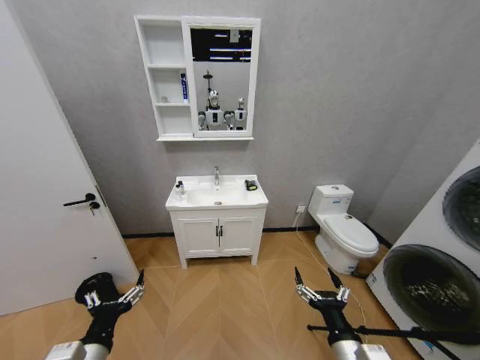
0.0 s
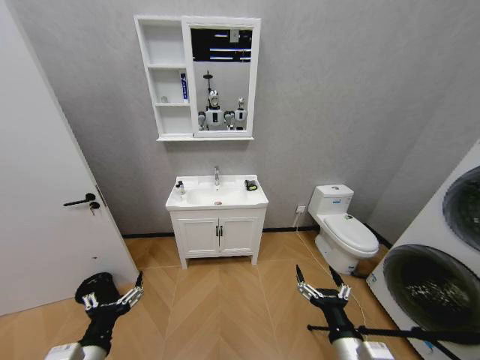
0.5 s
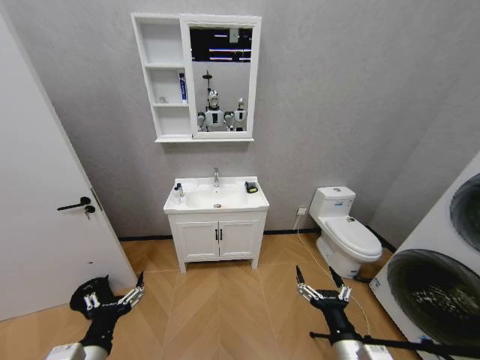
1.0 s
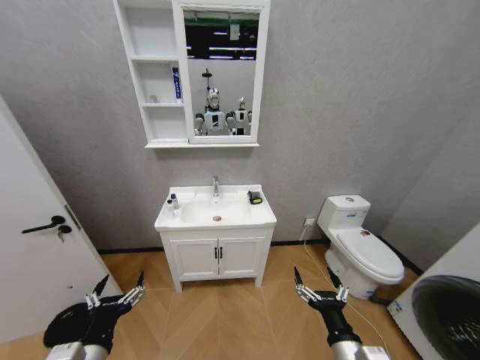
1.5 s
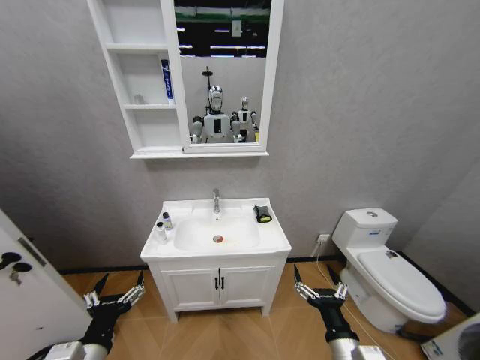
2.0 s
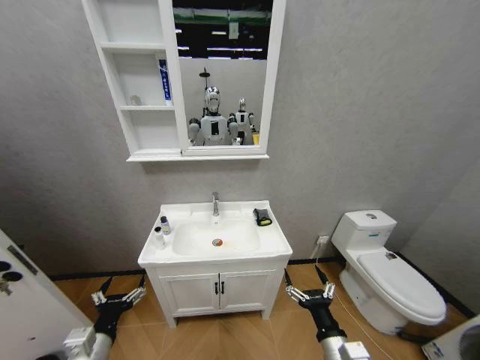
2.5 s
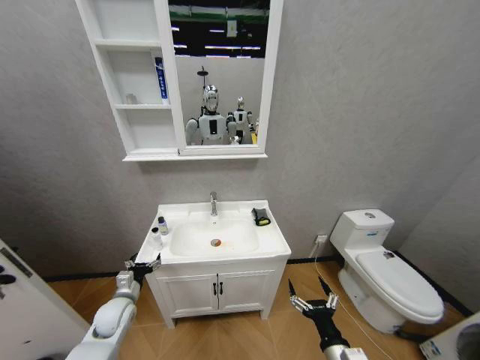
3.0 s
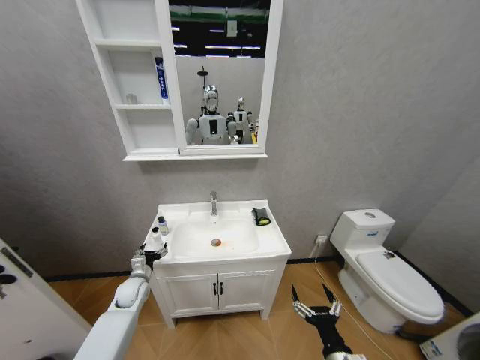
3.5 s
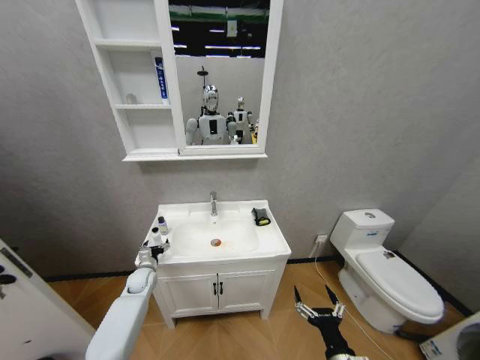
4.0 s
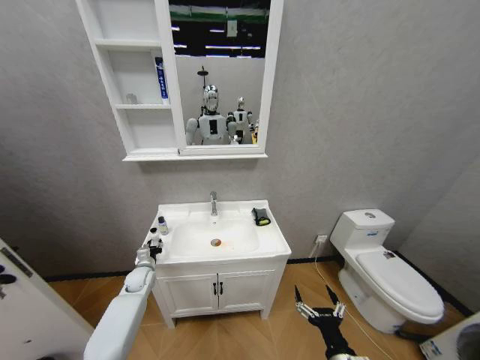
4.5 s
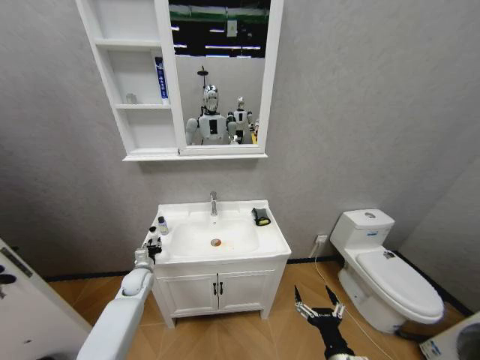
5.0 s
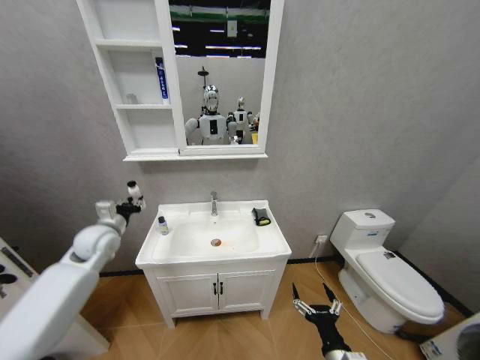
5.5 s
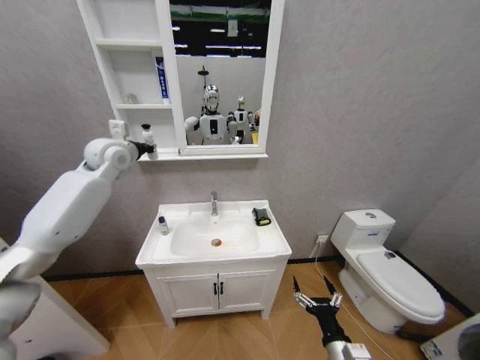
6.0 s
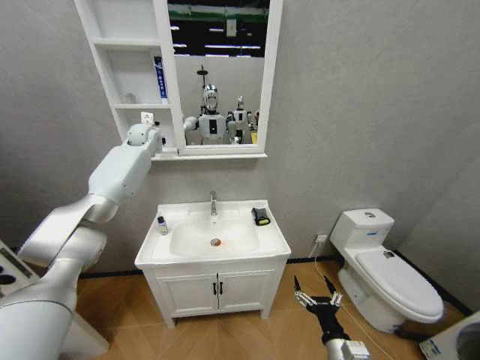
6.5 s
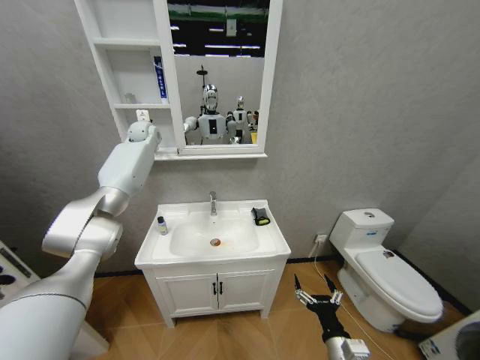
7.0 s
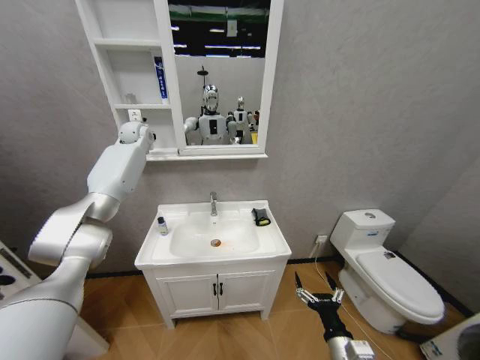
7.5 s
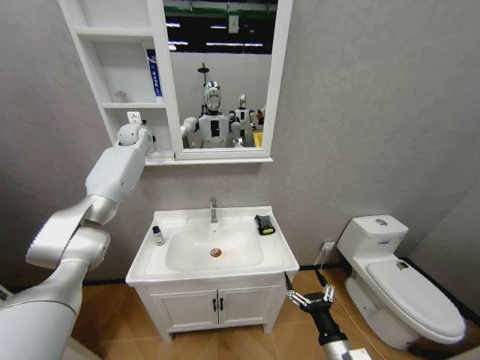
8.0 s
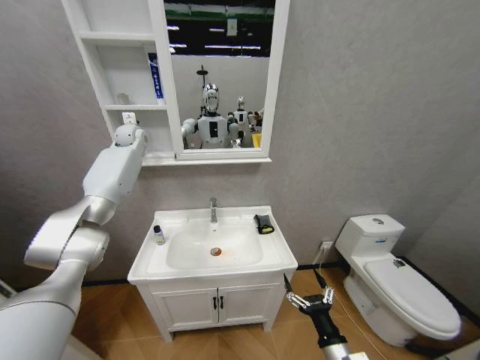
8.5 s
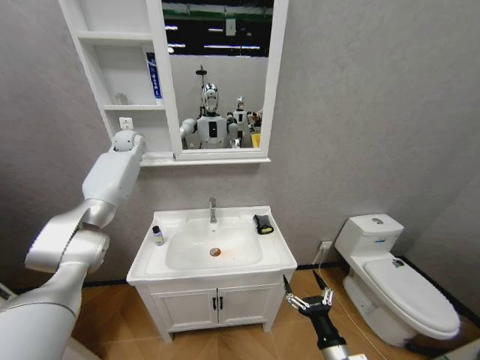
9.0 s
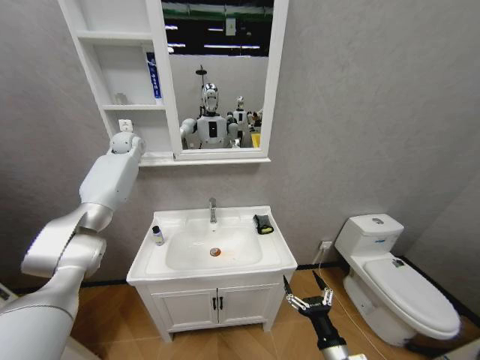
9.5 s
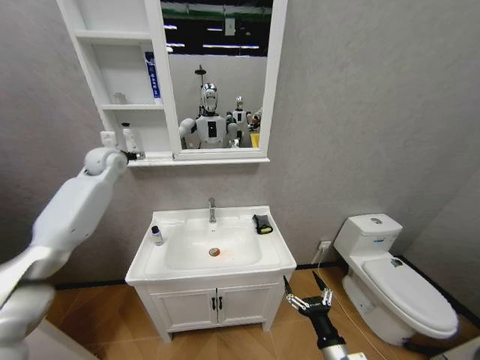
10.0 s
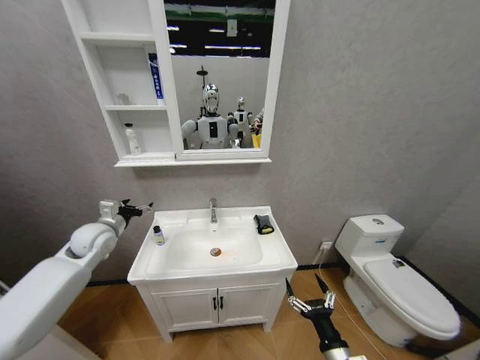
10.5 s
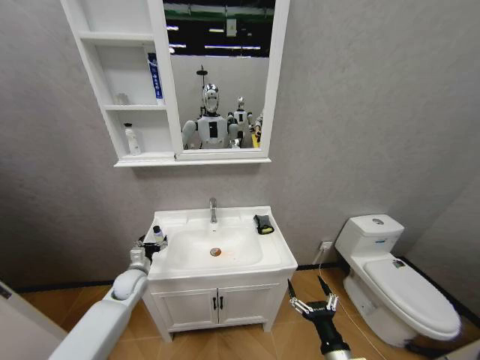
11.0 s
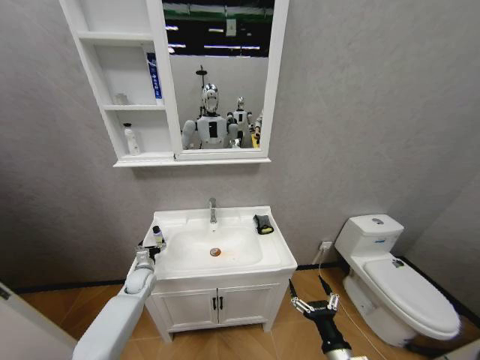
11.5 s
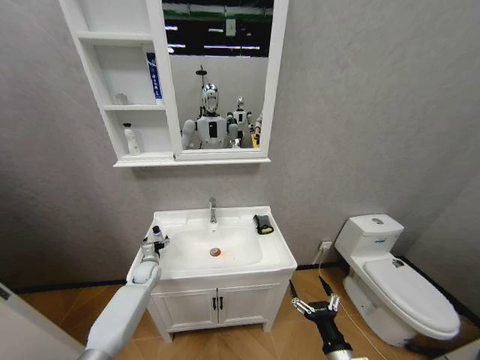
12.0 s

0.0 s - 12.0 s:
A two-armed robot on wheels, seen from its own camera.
Task of the whole recording: Move facial cleanser and shampoo from washbasin to cabinet, then wipe washbasin with towel.
2.0 s - 4.0 s: The left gripper moves forward and downward, roughly 35 cm. The right gripper is displaced downward by about 5 cm.
4.0 s - 6.0 s: The left gripper heads upward, covering roughly 50 cm, and closes.
6.0 s - 8.0 s: The left gripper travels forward by about 15 cm.
8.0 s - 10.0 s: The left gripper shifts some 10 cm backward and to the left, and opens its fingers.
10.0 s - 12.0 s: The left gripper shifts some 40 cm downward.

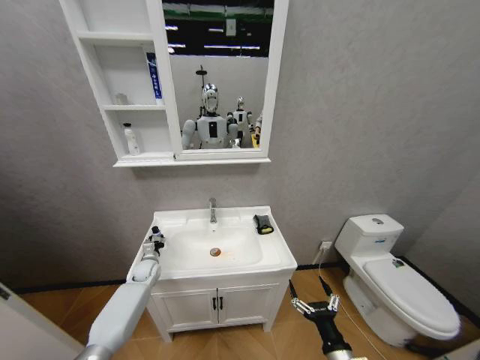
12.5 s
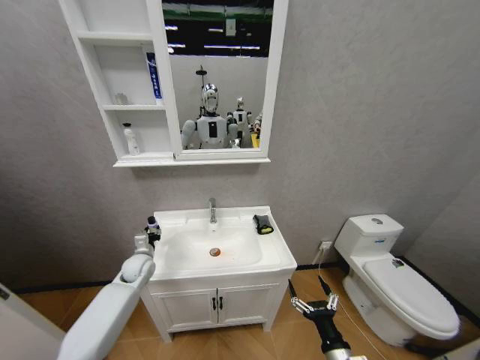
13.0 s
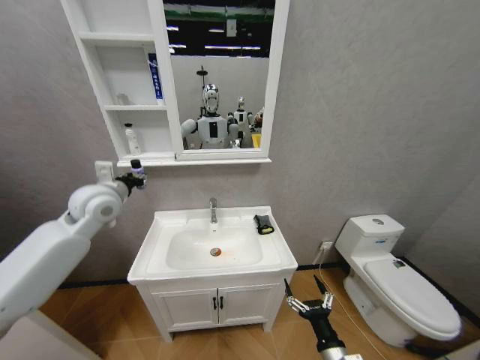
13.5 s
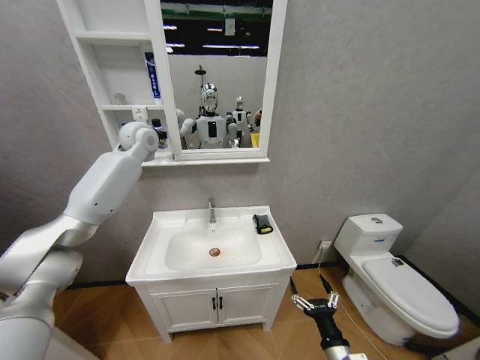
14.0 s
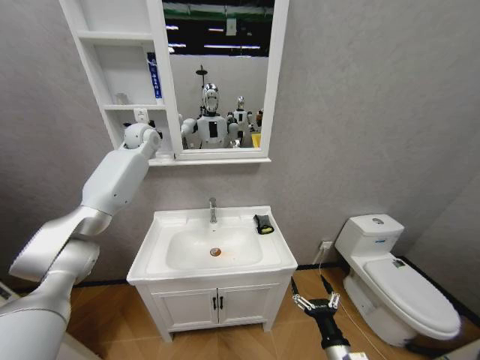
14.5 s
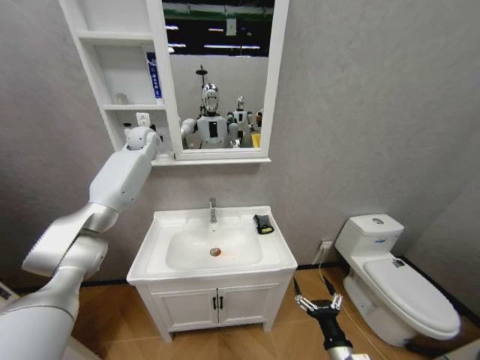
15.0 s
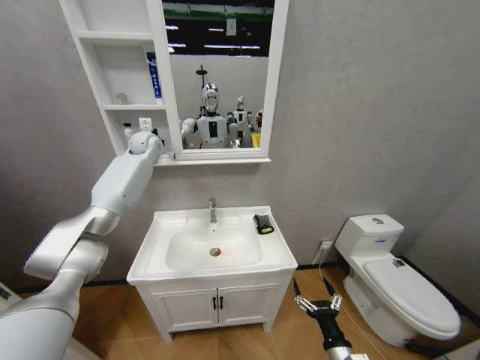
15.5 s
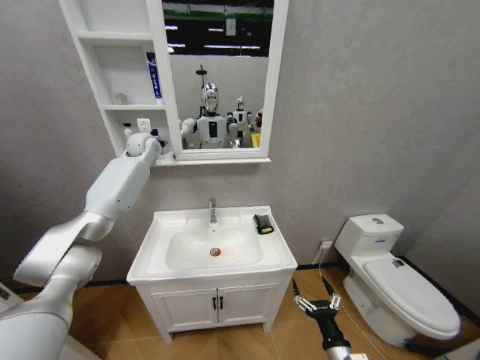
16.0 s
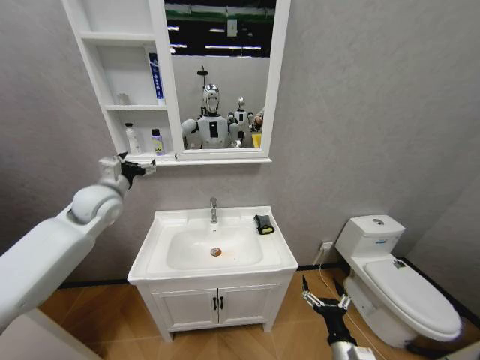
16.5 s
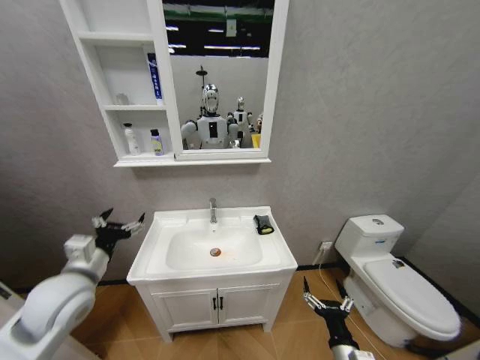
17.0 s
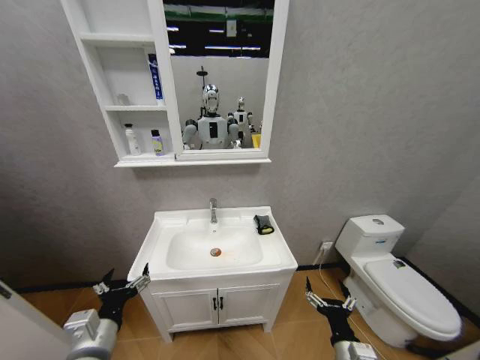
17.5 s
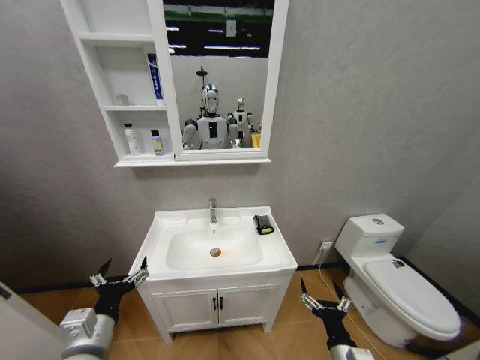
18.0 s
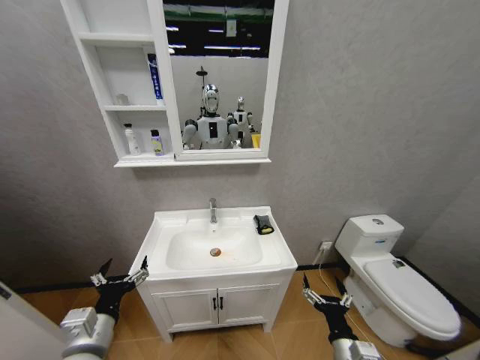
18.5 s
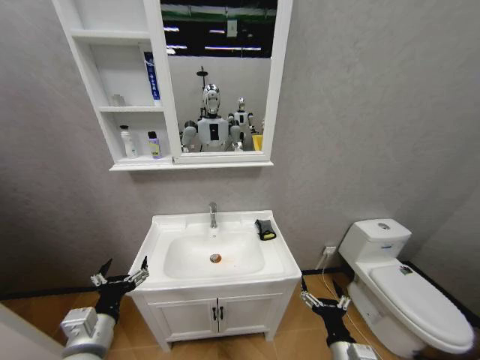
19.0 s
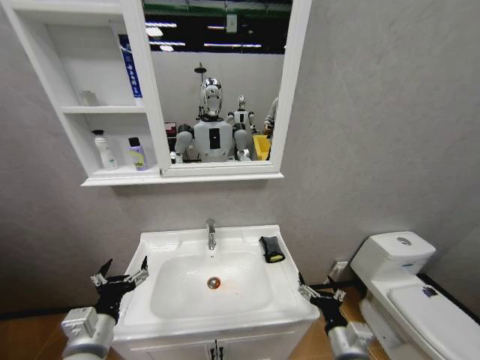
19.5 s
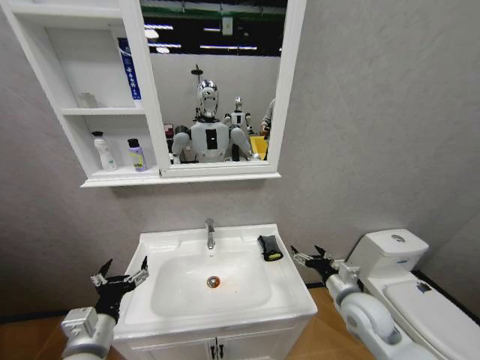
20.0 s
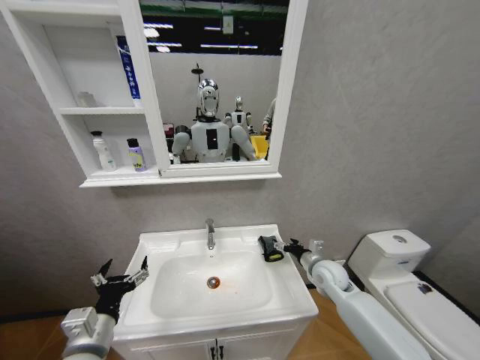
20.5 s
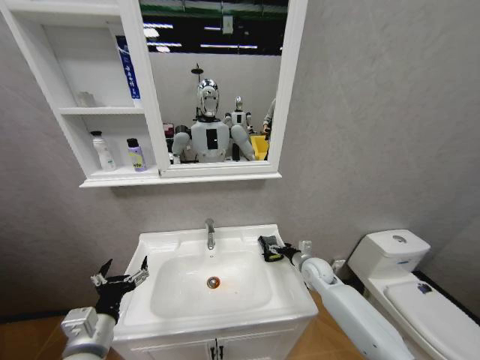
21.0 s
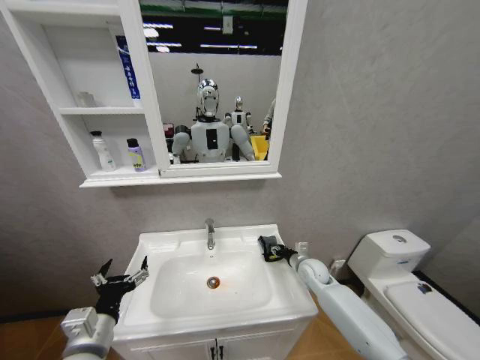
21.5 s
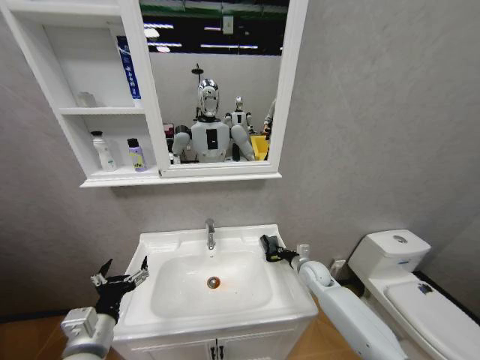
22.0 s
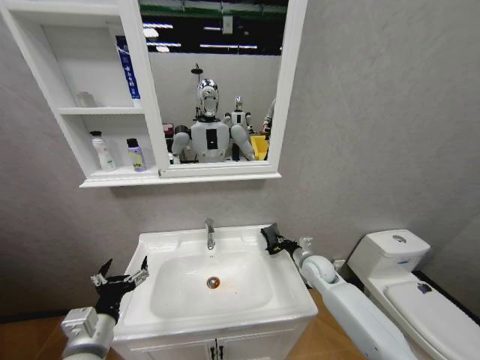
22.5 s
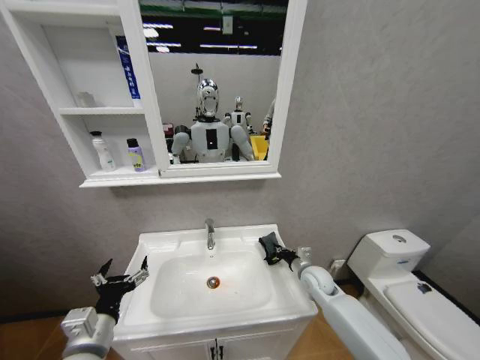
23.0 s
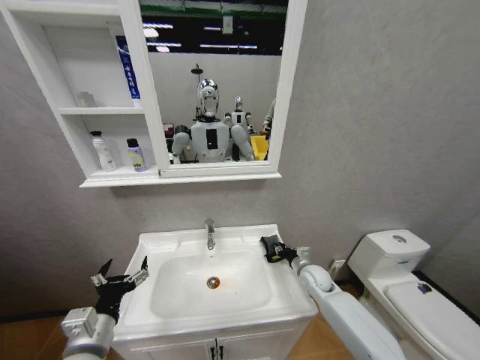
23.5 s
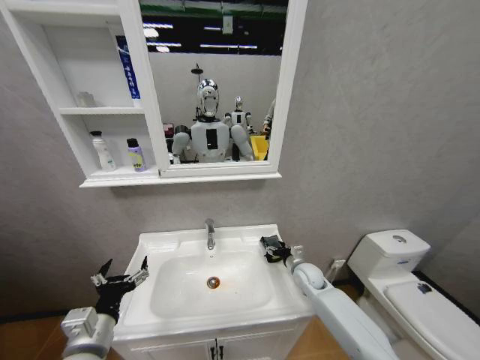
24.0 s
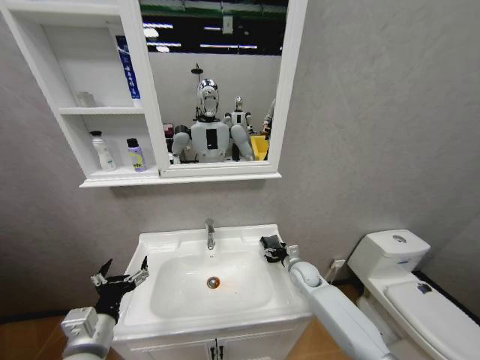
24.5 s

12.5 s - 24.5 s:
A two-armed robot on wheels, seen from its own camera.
Task of the whole recording: Move facial cleanser and shampoo from washbasin to cabinet, then wipe washbasin with towel.
12.5 s - 14.5 s: The left gripper moves upward, about 50 cm.
14.5 s - 16.5 s: The left gripper heads backward and downward, covering some 20 cm, and opens.
16.5 s - 18.5 s: The left gripper travels backward and downward by about 35 cm.
18.5 s - 20.5 s: The right gripper shifts about 25 cm forward.
20.5 s - 22.5 s: The right gripper closes up.
22.5 s - 24.5 s: The right gripper heads downward, covering some 5 cm, and opens.

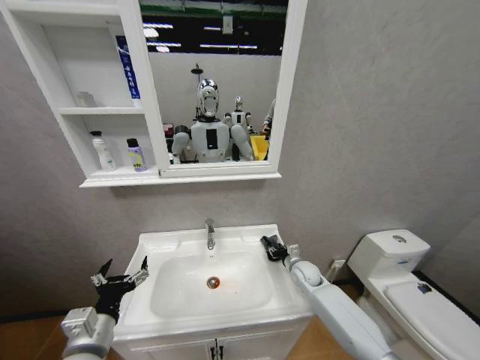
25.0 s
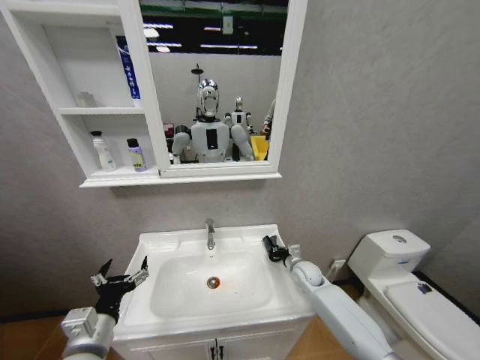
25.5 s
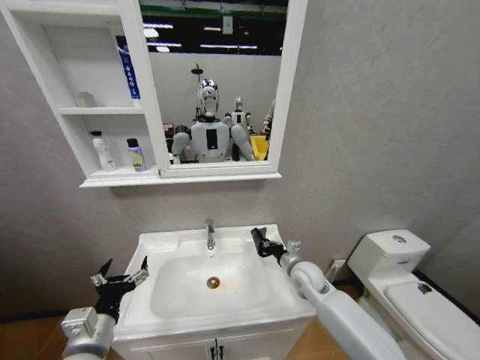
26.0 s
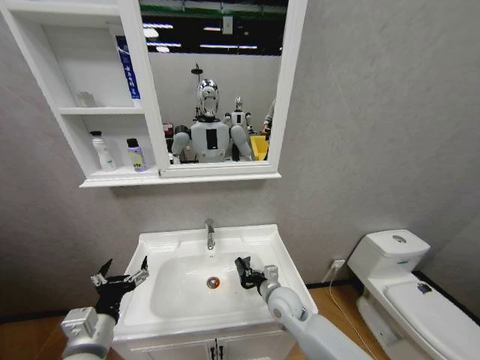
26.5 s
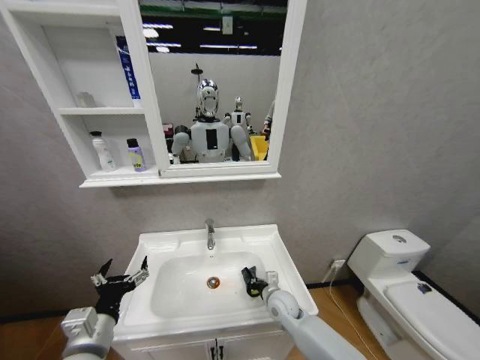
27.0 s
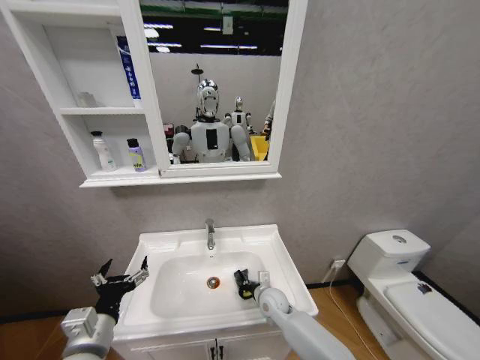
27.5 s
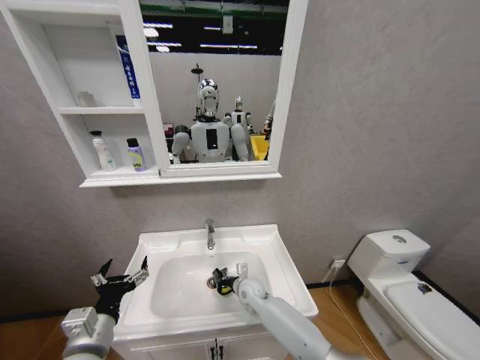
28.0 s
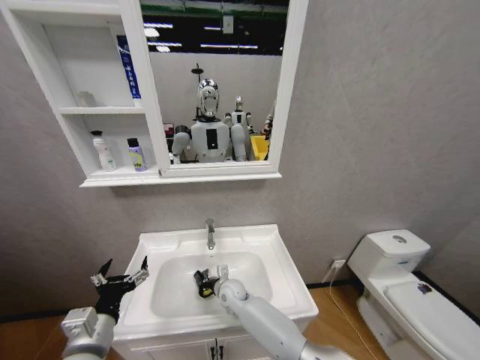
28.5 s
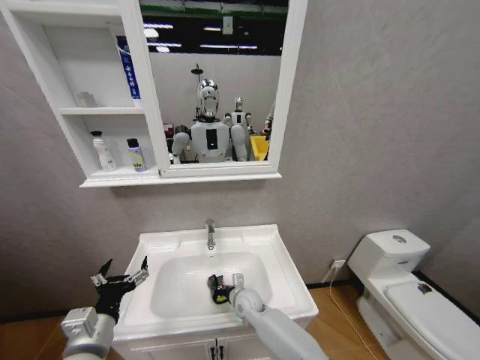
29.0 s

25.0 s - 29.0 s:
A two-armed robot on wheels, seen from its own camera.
Task of the whole recording: Move facial cleanser and shampoo from washbasin to cabinet, then wipe washbasin with towel.
25.0 s - 27.0 s: The right gripper moves to the left and backward, roughly 15 cm, and closes its fingers.
27.0 s - 29.0 s: The right gripper goes some 10 cm to the left.
